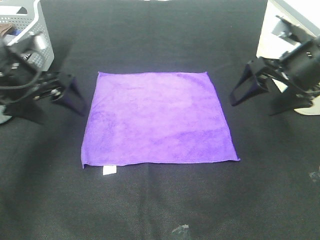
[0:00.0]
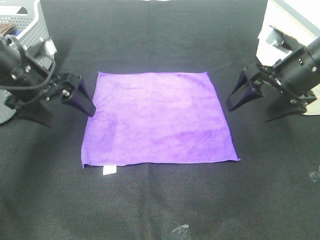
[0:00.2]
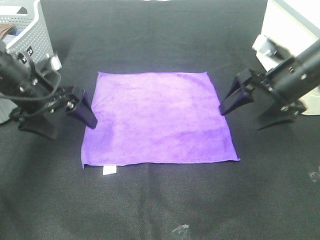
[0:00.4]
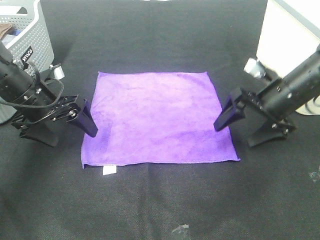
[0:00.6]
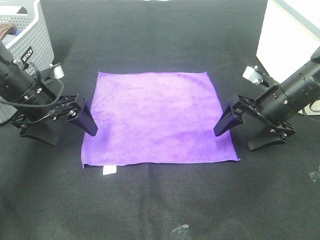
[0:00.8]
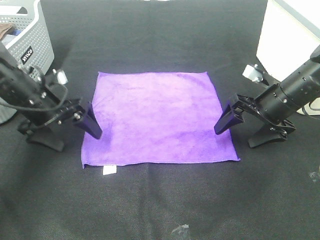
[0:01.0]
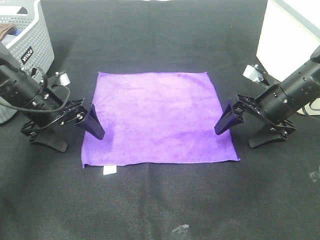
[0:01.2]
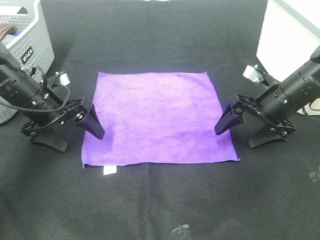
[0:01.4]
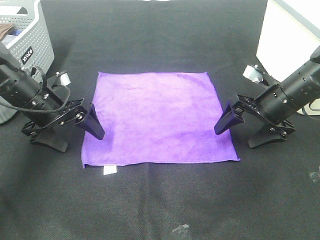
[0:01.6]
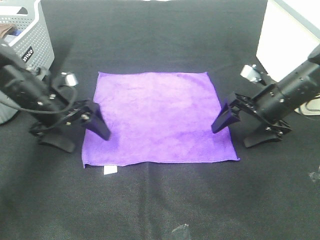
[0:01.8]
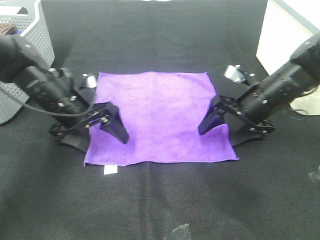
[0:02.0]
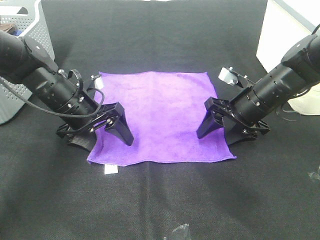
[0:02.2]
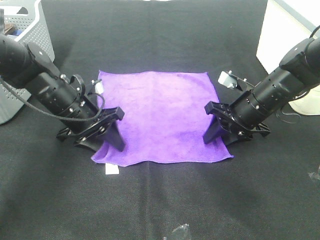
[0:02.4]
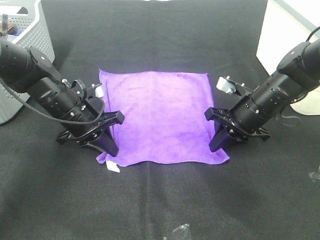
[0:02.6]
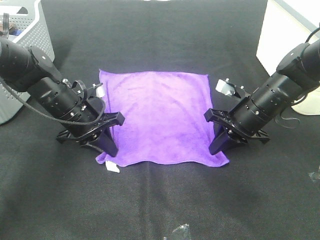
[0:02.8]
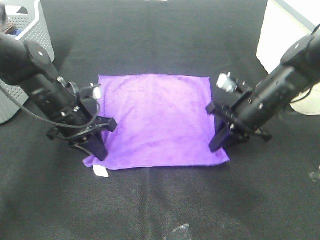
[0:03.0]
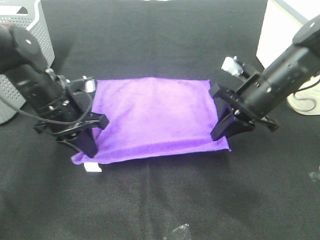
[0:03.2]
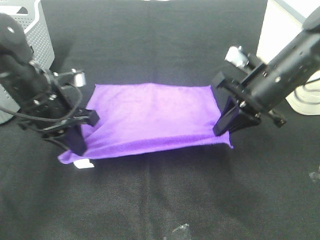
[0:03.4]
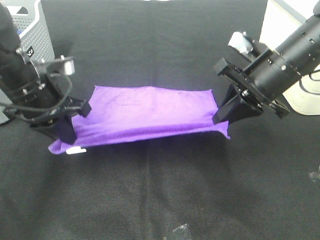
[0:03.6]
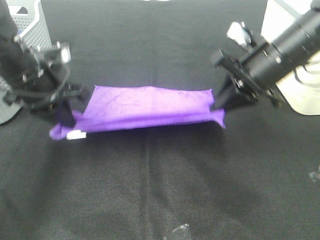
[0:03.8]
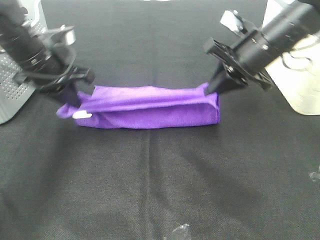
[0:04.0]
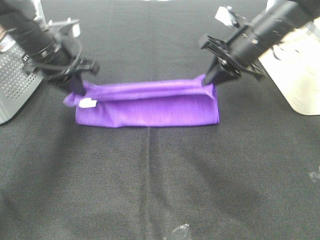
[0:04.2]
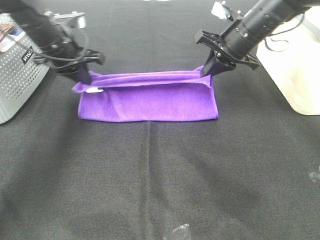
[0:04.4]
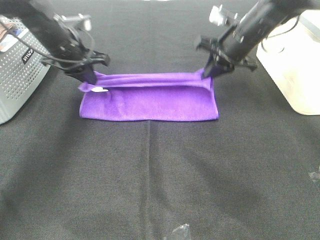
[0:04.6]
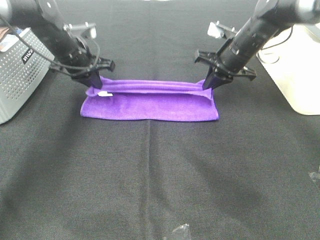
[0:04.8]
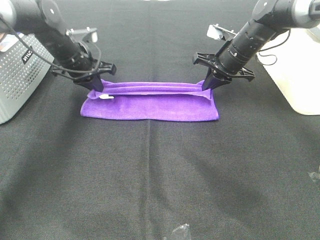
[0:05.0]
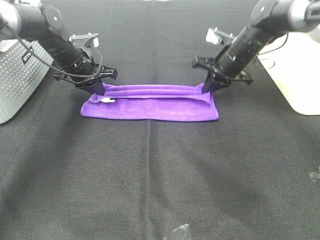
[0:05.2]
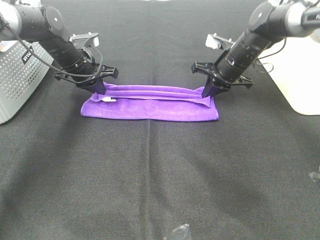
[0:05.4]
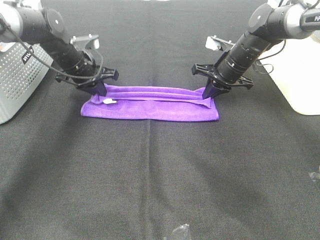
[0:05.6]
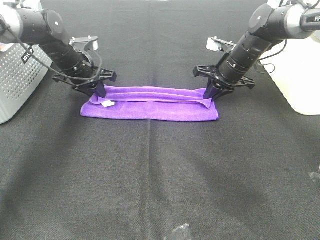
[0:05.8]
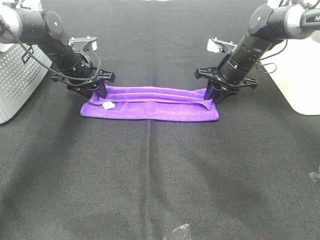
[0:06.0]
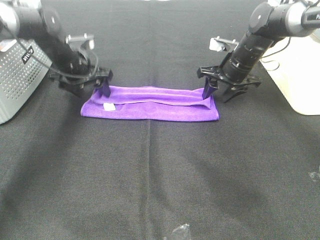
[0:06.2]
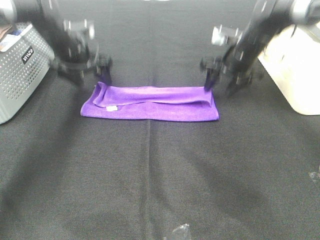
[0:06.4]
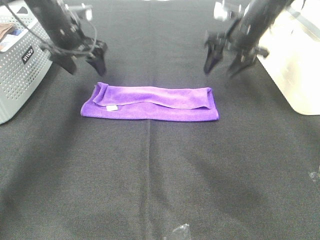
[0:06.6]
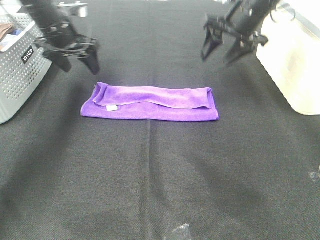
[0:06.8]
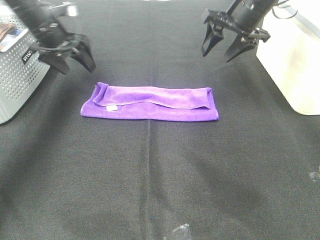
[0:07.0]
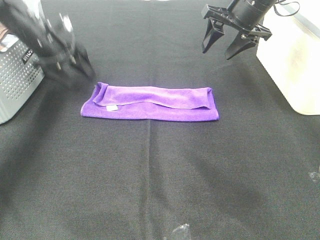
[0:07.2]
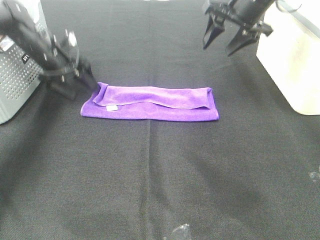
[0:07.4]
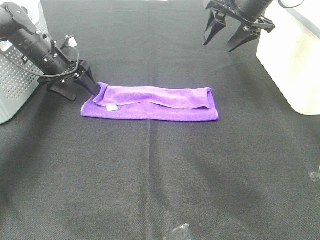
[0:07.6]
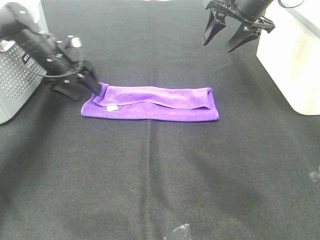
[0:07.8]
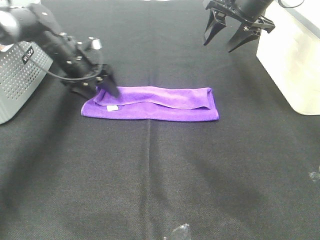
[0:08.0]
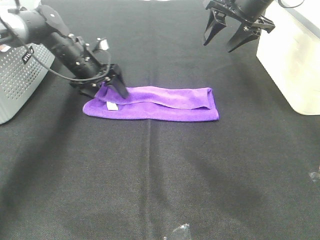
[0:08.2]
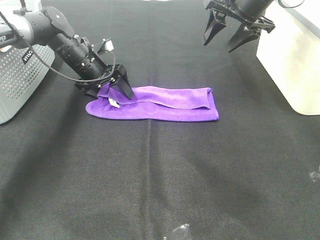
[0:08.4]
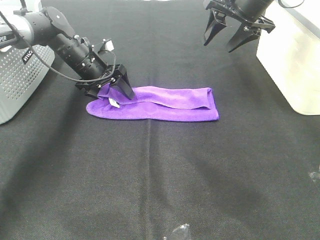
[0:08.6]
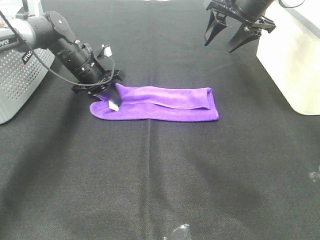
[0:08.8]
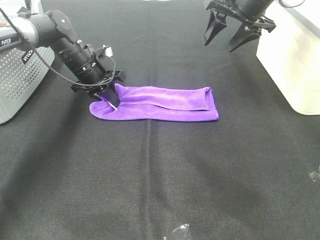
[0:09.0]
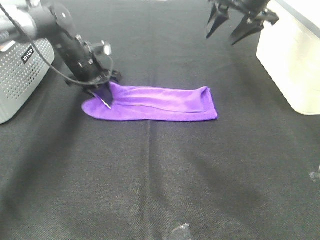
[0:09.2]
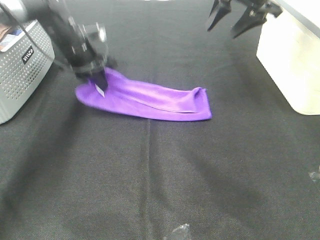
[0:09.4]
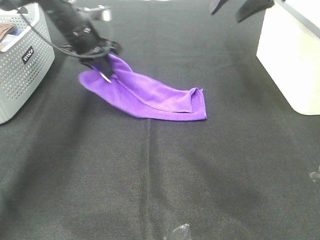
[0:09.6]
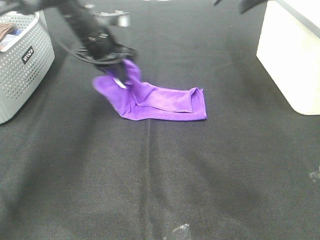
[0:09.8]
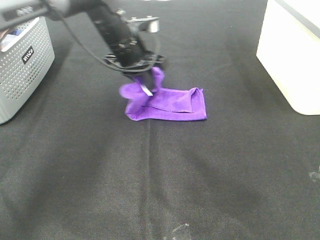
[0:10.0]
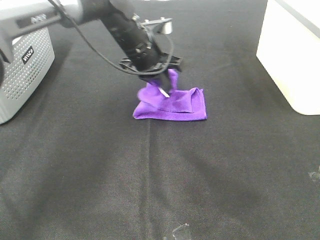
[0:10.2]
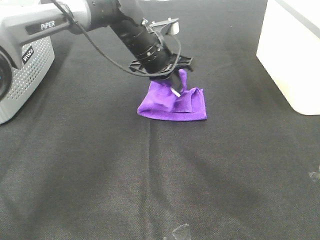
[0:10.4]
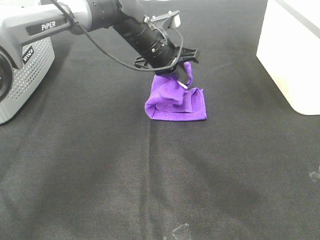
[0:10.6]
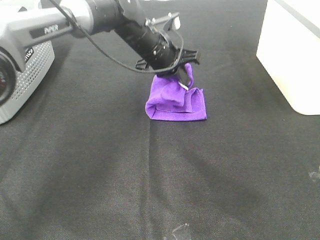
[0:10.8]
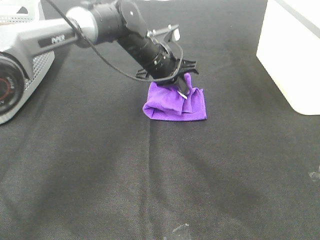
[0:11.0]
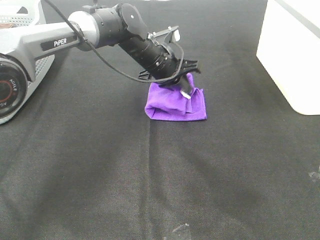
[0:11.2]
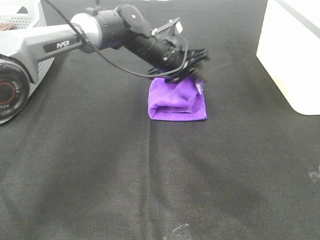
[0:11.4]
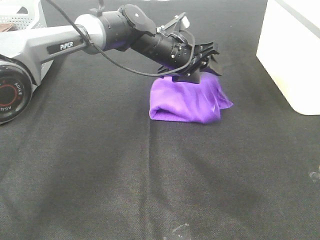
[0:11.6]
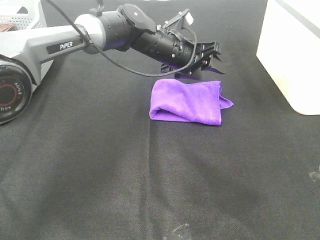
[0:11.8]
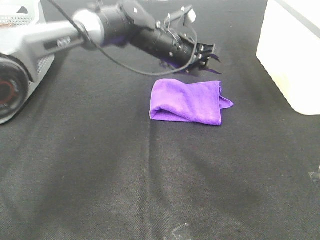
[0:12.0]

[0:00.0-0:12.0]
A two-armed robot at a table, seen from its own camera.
Task of the whole recording: Fold towels.
Step, 0.0 to 2.6 s: Left hand: grab the bottom left corner of purple towel.
Step, 0.0 to 2.6 s: Right hand: grab the bottom right corner of purple towel.
Step, 2.8 to 5.4 s: Left hand: fold the purple towel up.
Step, 2.8 to 5.4 s: Right hand: fold the purple towel up.
Step, 5.6 to 11.0 s: Left hand: fold the purple towel from left to right.
0.0 to 1.6 s: The two grippers go roughly 10 cm downward.
1.6 to 3.0 s: The left gripper shifts about 5 cm to the right, and closes. The right gripper closes up.
3.0 to 4.4 s: The grippers both shift forward and upward by roughly 15 cm.
4.4 to 6.0 s: Both grippers travel together downward, approximately 10 cm. The left gripper opens up, while the right gripper opens its fingers.
6.0 to 7.6 s: The right gripper shifts about 15 cm upward. Meanwhile the left gripper shifts roughly 5 cm to the left, and travels upward and back again, about 10 cm each way.
7.6 to 9.0 s: The left gripper goes roughly 10 cm to the right, and closes up.
9.0 to 10.4 s: The right gripper shifts approximately 15 cm upward and backward. The left gripper travels to the right and upward by about 15 cm.
10.4 to 12.0 s: The left gripper opens its fingers.

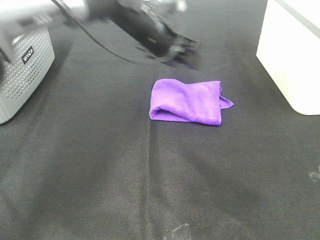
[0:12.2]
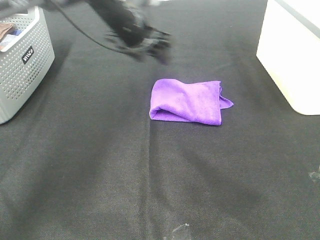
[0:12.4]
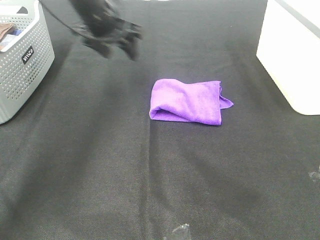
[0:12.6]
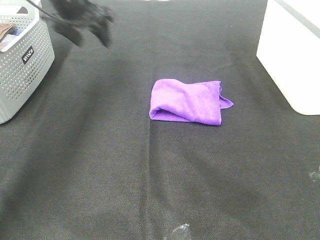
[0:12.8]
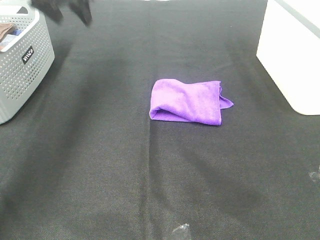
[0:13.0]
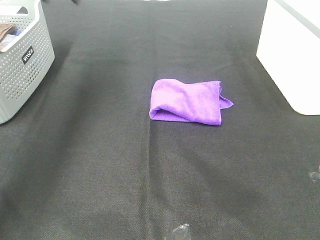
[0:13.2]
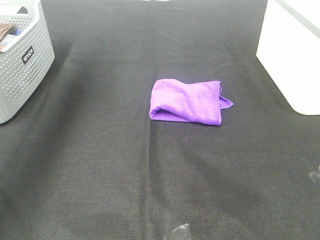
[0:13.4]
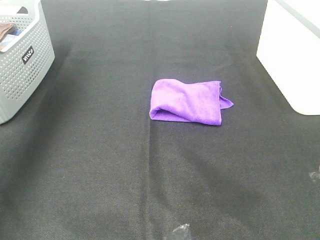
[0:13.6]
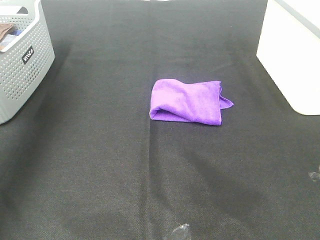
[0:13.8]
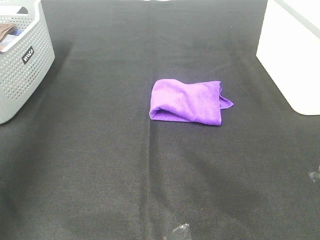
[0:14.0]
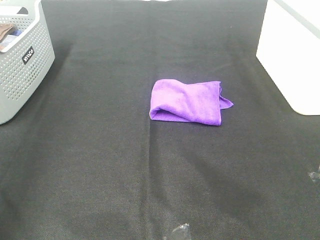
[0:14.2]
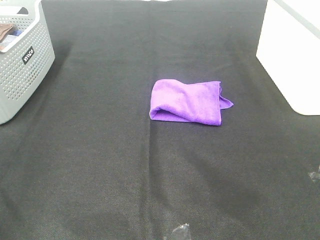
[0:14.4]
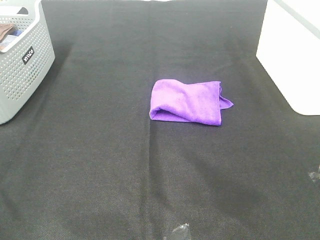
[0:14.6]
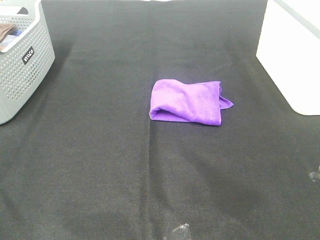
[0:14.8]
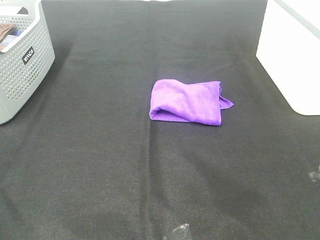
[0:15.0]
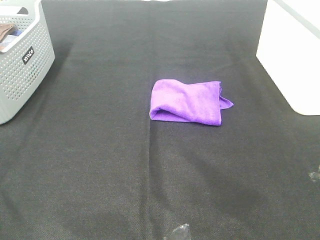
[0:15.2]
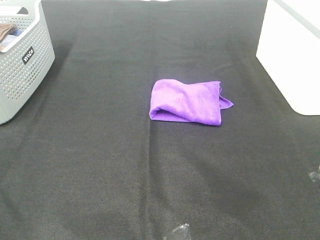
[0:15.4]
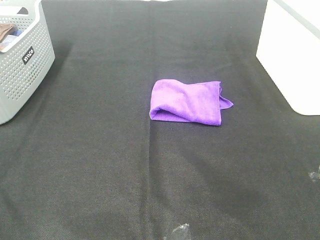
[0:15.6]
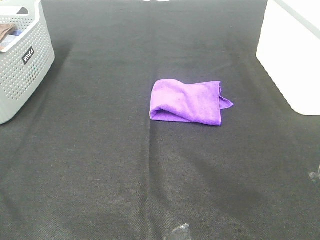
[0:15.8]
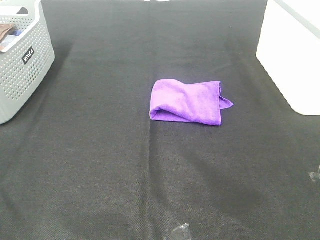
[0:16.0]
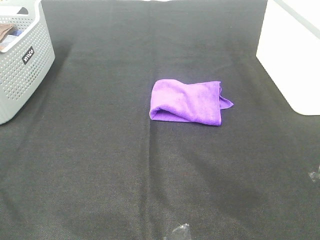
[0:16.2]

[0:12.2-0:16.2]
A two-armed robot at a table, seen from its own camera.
Task of the whole recording: Fold towels.
12.2 to 13.6 s: The left gripper moves to the left and upward, some 40 cm; the right gripper is displaced backward by some 15 cm.
13.6 to 14.8 s: The left gripper heads backward, covering some 40 cm.

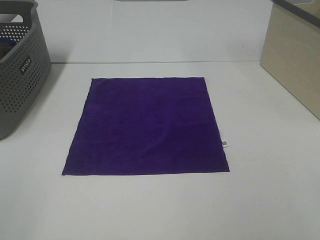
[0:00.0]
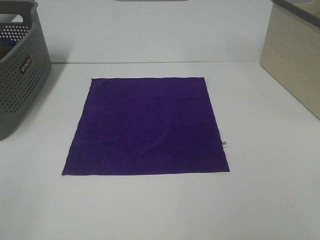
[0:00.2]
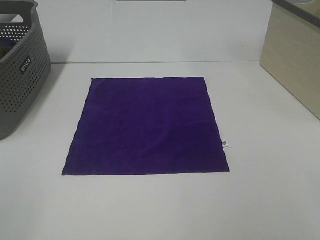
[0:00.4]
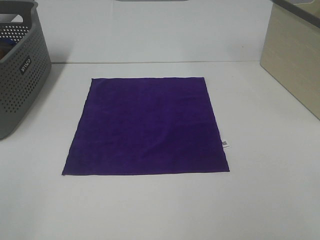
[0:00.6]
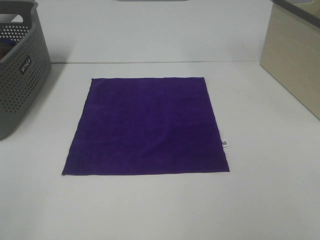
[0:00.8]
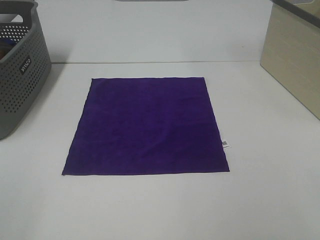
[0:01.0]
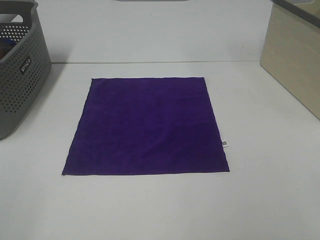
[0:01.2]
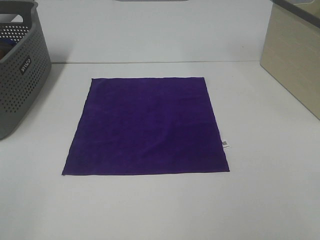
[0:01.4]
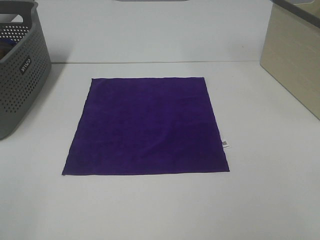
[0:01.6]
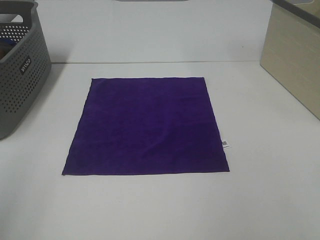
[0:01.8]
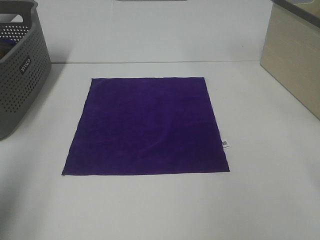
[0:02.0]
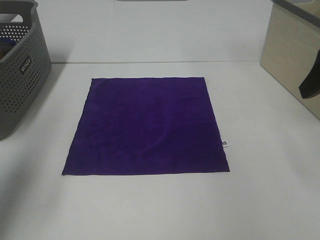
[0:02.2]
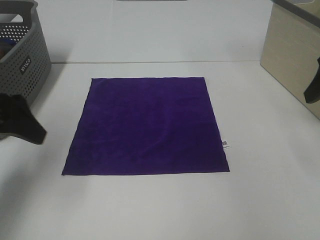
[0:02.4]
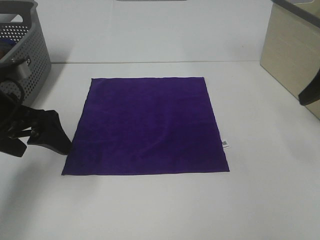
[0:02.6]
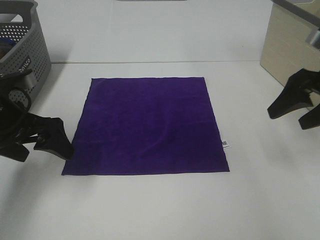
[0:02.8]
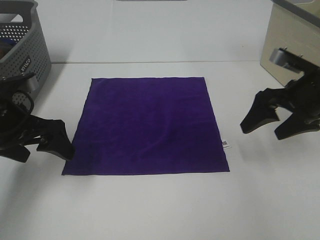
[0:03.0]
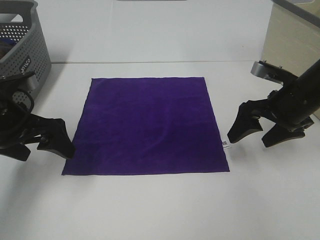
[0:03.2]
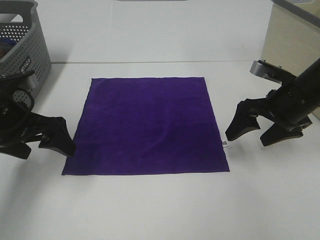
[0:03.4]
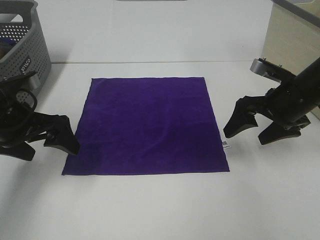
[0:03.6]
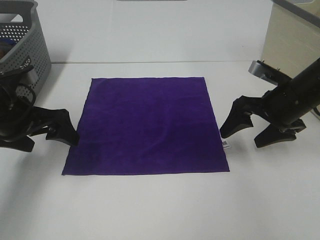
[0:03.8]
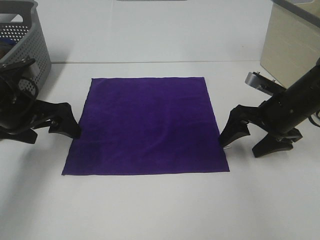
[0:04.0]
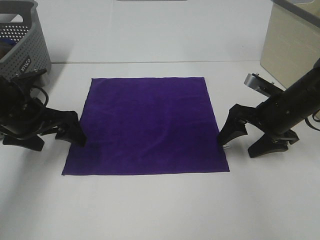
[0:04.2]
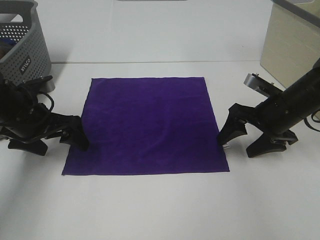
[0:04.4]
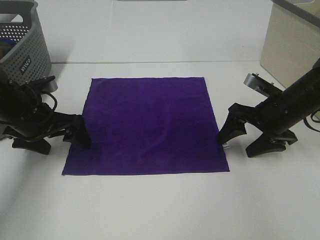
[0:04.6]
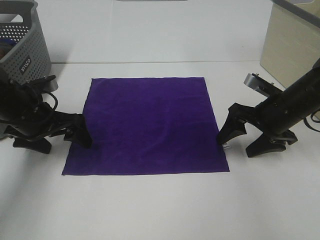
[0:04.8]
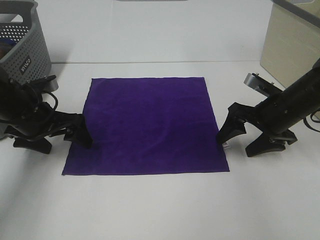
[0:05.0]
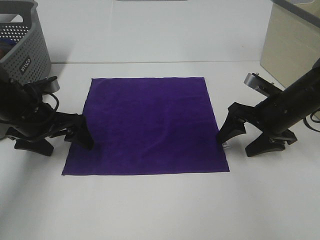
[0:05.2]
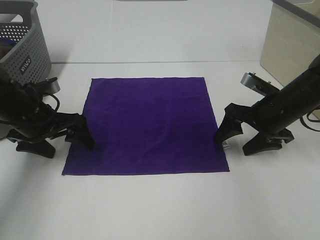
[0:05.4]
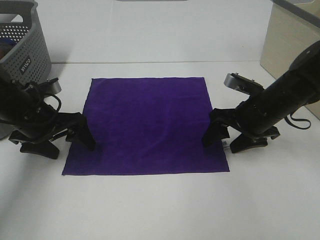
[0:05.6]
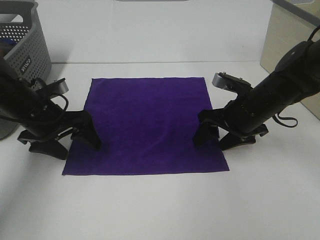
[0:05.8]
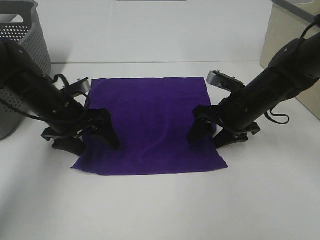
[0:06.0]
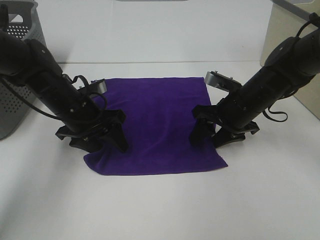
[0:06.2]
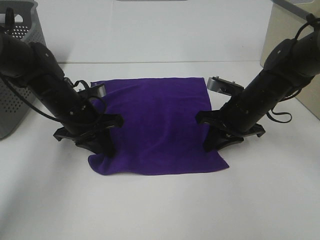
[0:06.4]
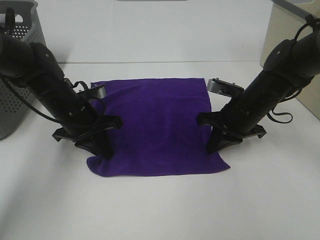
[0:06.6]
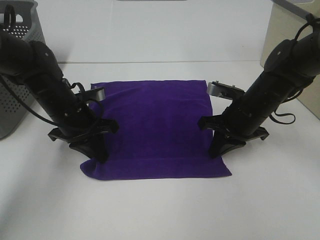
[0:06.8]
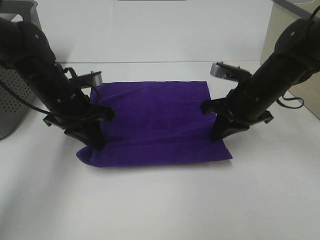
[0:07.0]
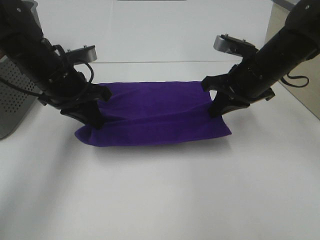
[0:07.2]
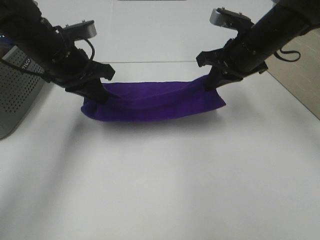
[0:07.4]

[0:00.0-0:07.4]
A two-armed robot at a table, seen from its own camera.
Task of the whole recording: Fold towels.
Step, 0.0 to 6.6 s: Left hand: grab the bottom left corner of purple towel.
Step, 0.0 to 6.6 s: Right hand: grab the bottom right corner of purple towel.
0.0 to 1.4 s: Neither gripper changes place.
1.4 to 3.0 s: The left gripper is displaced forward and downward by about 30 cm, while the right gripper is displaced forward by about 30 cm.
3.0 to 4.4 s: The left gripper shifts by about 5 cm. The right gripper shifts approximately 5 cm downward.
4.4 to 6.0 s: The right gripper shifts about 5 cm to the left, while the left gripper moves to the right, about 5 cm.
6.0 to 7.4 s: The grippers both shift upward by about 10 cm. The left gripper closes up. Meanwhile the right gripper closes up.
